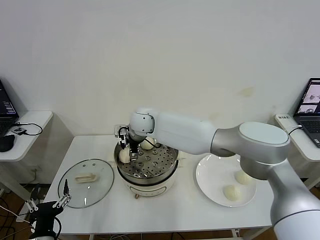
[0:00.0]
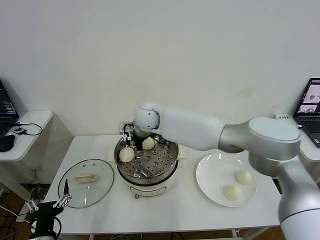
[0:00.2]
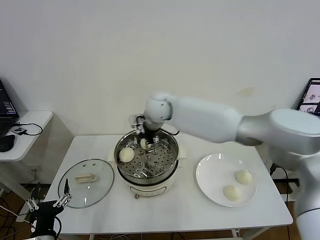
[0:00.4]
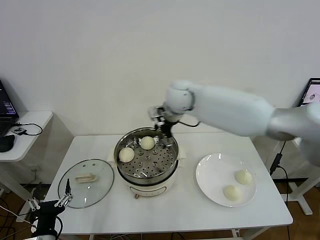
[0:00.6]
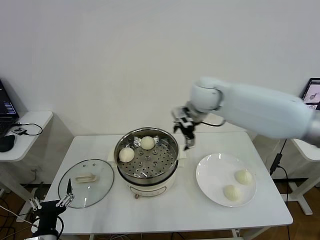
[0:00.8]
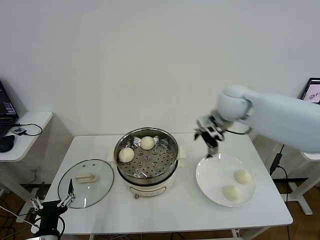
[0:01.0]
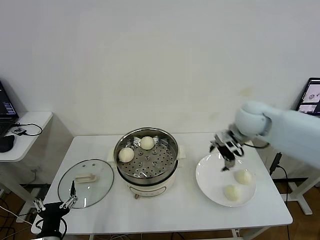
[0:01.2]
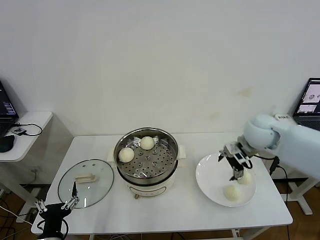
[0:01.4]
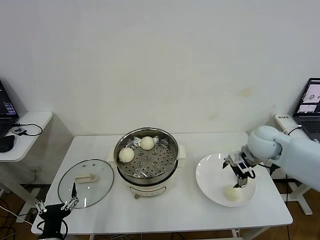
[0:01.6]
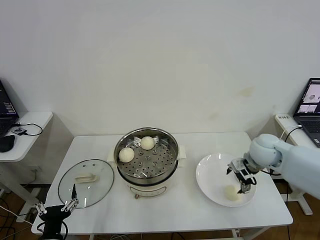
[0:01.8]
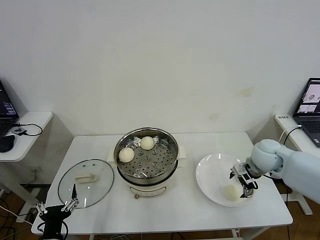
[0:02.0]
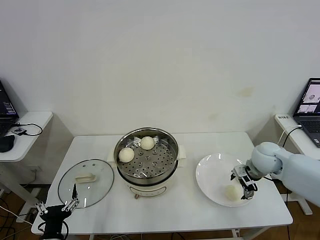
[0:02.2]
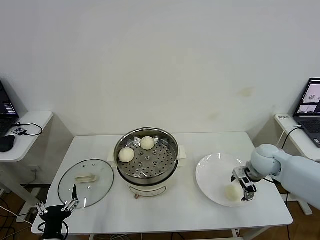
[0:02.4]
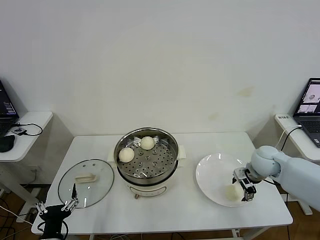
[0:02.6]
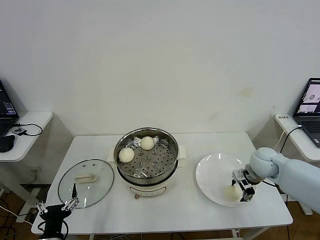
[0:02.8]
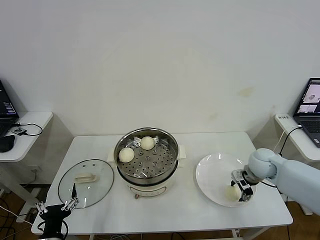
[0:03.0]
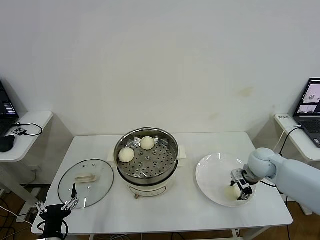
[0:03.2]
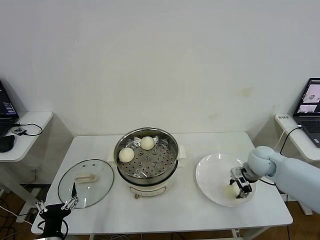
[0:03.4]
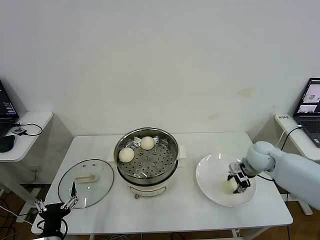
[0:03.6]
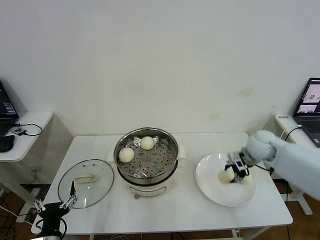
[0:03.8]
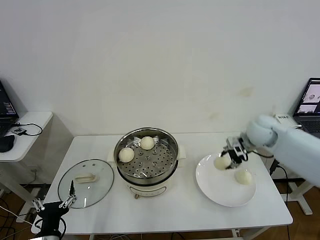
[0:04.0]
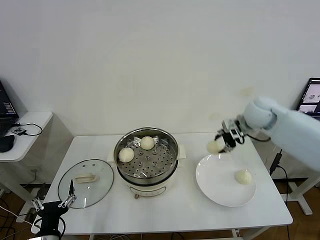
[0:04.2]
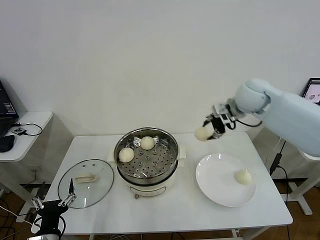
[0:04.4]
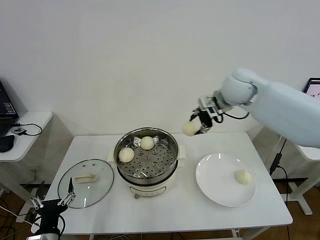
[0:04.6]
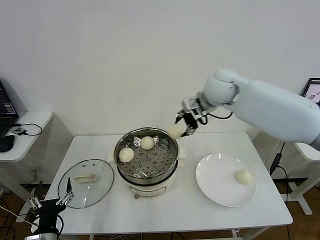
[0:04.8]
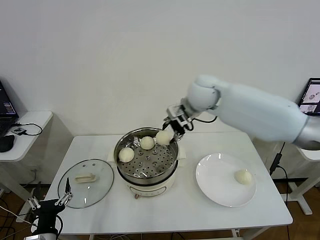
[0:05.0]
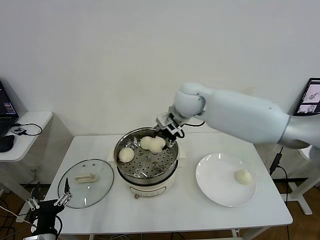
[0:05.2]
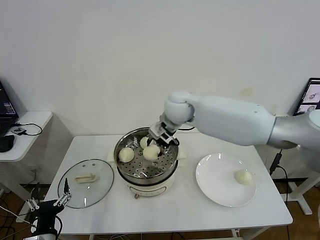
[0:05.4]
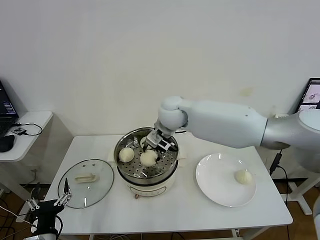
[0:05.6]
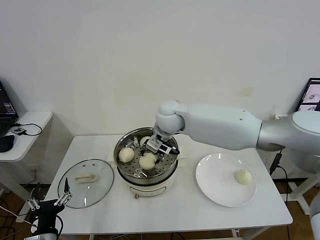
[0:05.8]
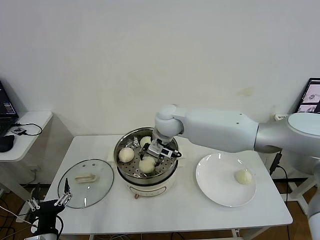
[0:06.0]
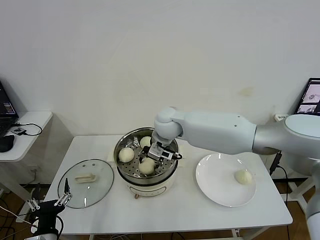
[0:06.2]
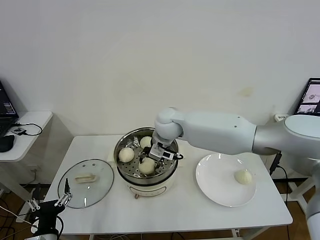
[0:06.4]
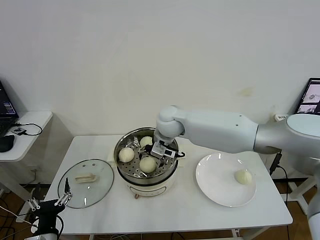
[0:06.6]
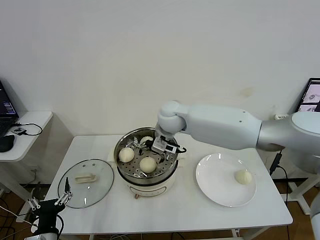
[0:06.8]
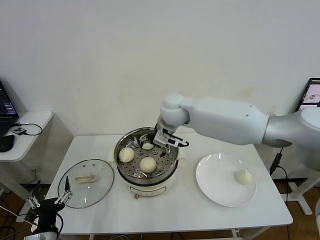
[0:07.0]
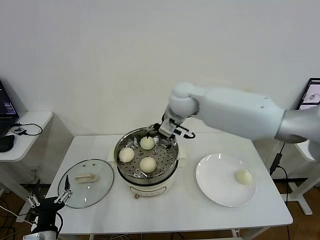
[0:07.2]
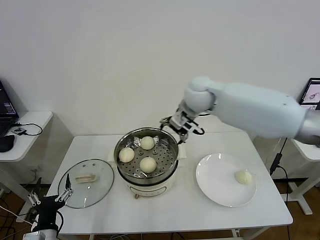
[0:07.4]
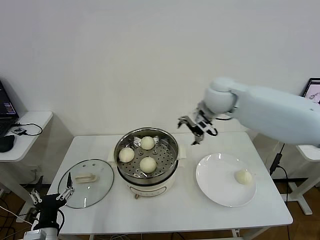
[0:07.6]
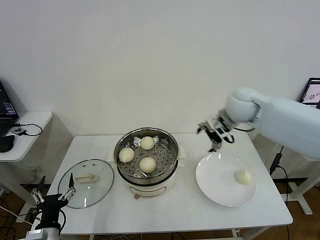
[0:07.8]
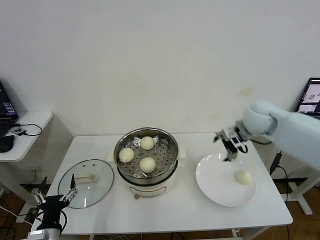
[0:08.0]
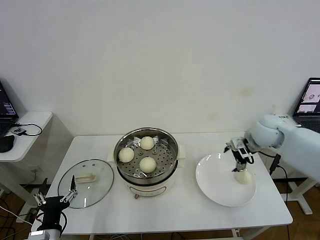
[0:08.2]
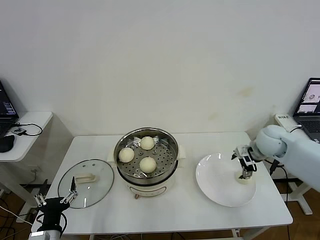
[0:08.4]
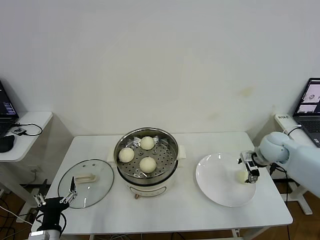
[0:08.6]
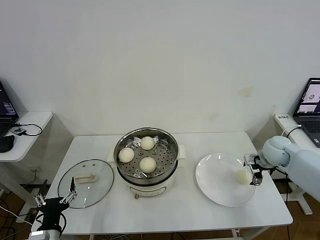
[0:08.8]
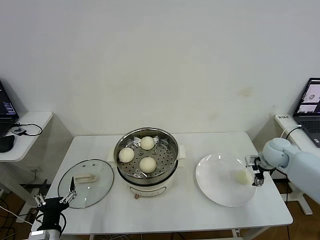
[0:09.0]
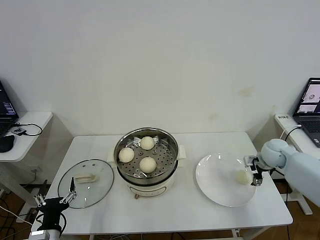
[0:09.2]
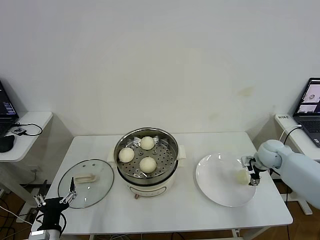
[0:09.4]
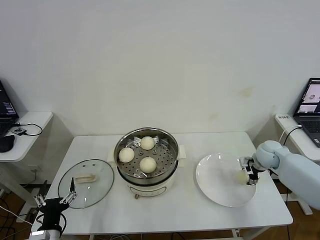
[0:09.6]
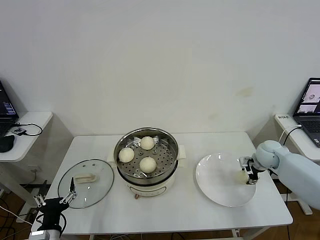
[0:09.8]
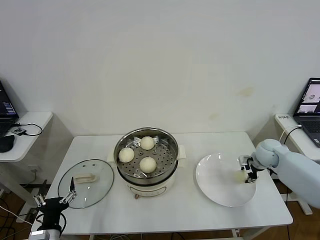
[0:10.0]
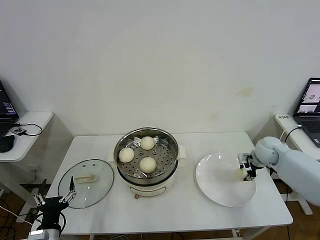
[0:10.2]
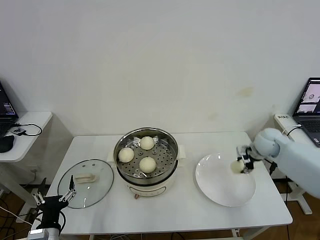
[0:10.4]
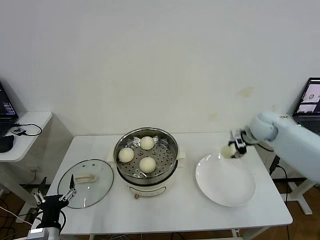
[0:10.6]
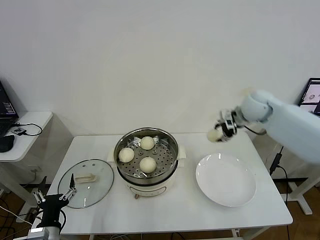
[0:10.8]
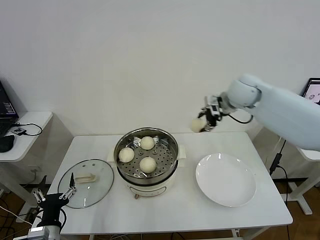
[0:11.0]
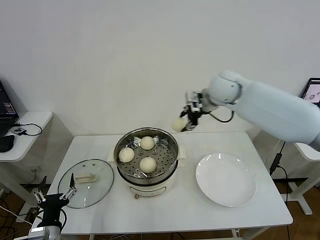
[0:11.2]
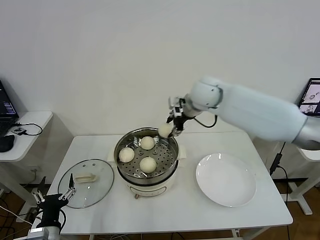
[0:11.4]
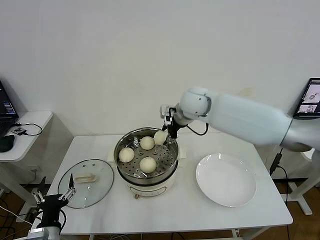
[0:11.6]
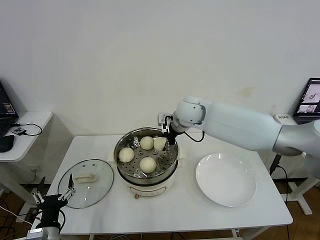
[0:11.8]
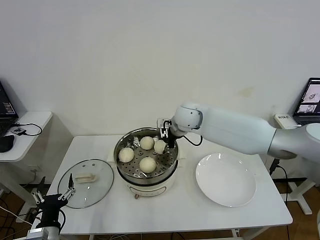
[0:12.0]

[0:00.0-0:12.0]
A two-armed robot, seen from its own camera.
Step, 0:00.2 to 0:03.2: Grasp the baozi in the plate with right gripper.
Step, 0:03.4 to 0:06.6: Place the baozi on the steamer with right gripper.
Step, 0:06.8 to 0:10.0: Grasp the baozi in the plate with right gripper.
0:00.0 to 0:01.6: The right gripper goes some 40 cm to the right.
0:01.6 to 0:03.0: The right gripper goes some 10 cm downward, and closes its fingers.
0:03.0 to 0:04.4: The right gripper is displaced upward, forward and to the left by approximately 25 cm, and closes up.
0:04.4 to 0:06.0: The right gripper travels to the left by some 25 cm.
0:06.0 to 0:07.6: The right gripper travels to the right and upward by about 15 cm, and opens.
0:07.6 to 0:09.0: The right gripper travels to the right and downward by some 30 cm.
0:09.0 to 0:10.4: The right gripper closes.
0:10.4 to 0:12.0: The right gripper heads to the left, covering approximately 30 cm.

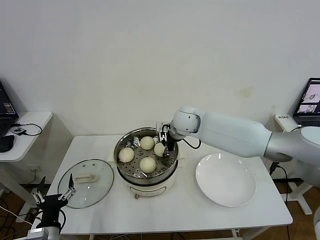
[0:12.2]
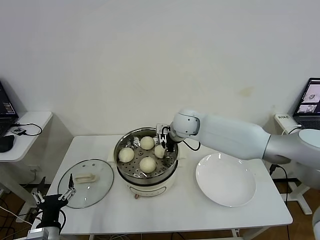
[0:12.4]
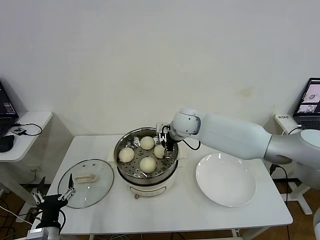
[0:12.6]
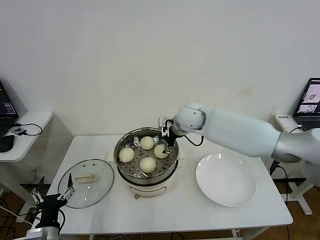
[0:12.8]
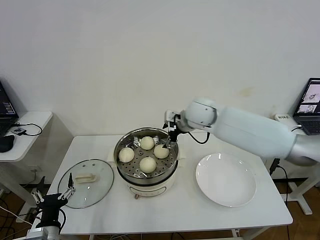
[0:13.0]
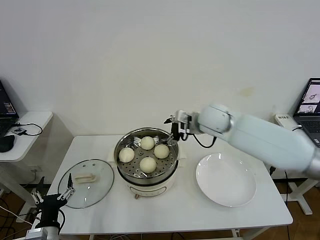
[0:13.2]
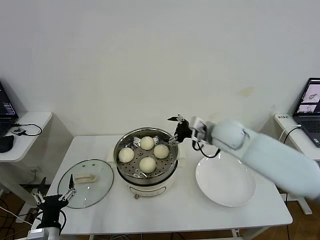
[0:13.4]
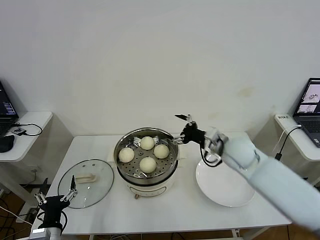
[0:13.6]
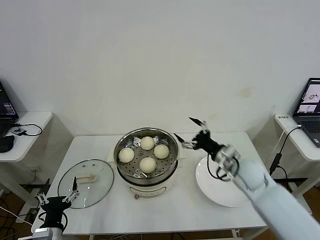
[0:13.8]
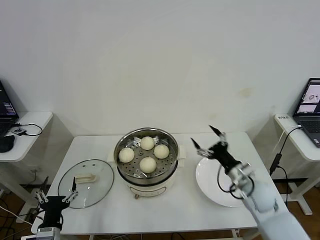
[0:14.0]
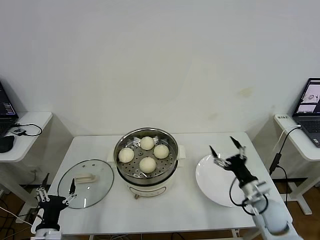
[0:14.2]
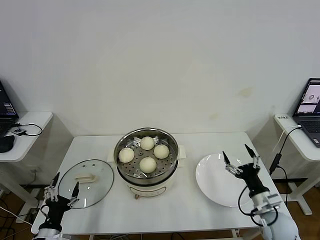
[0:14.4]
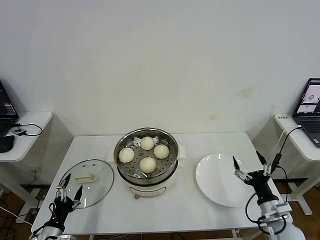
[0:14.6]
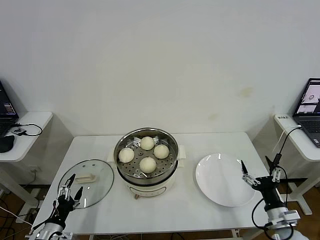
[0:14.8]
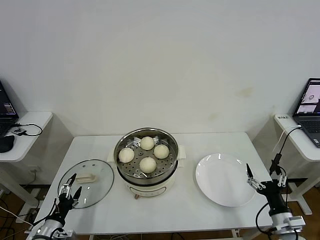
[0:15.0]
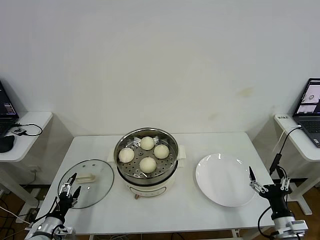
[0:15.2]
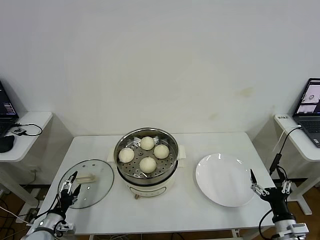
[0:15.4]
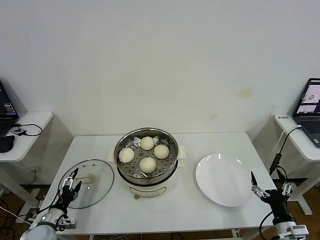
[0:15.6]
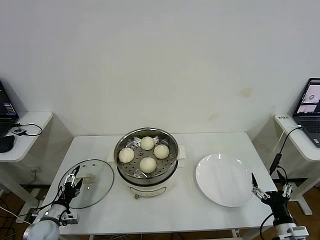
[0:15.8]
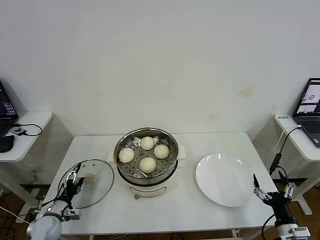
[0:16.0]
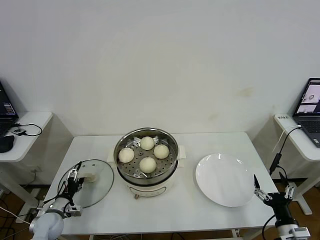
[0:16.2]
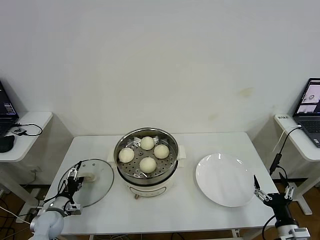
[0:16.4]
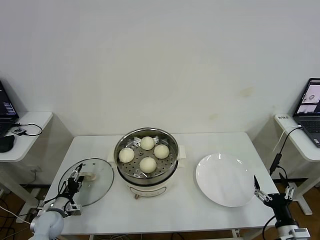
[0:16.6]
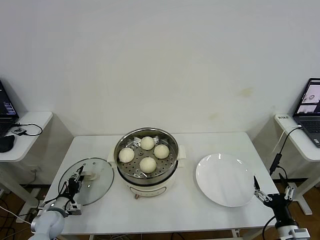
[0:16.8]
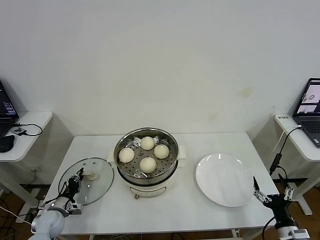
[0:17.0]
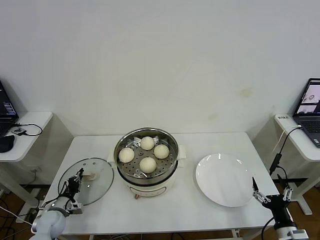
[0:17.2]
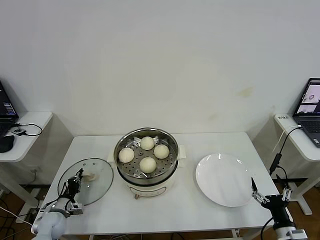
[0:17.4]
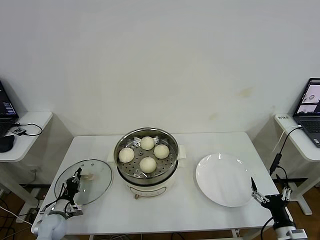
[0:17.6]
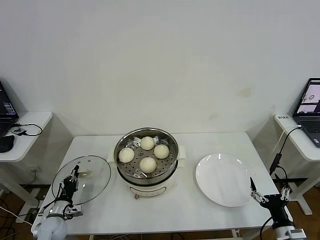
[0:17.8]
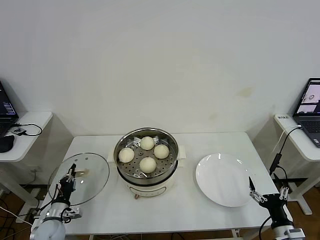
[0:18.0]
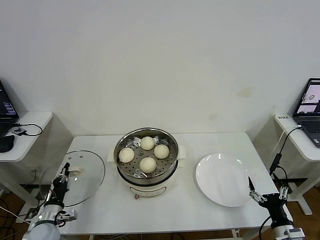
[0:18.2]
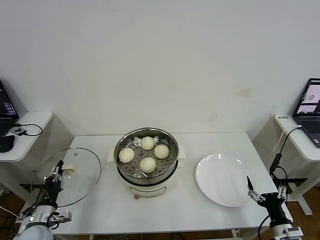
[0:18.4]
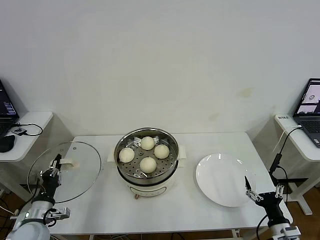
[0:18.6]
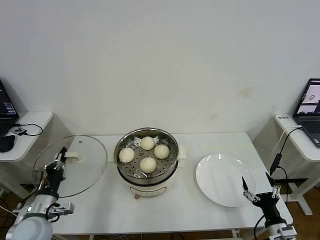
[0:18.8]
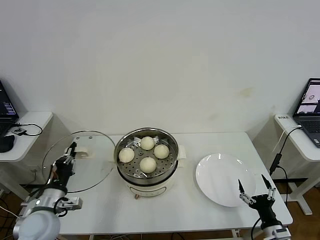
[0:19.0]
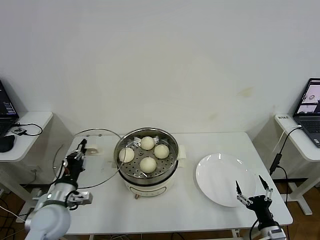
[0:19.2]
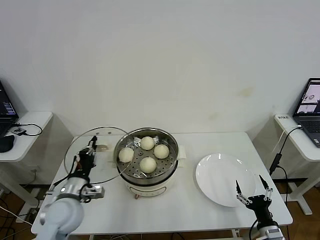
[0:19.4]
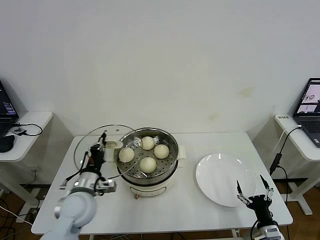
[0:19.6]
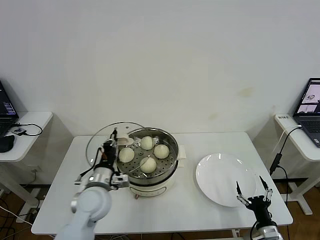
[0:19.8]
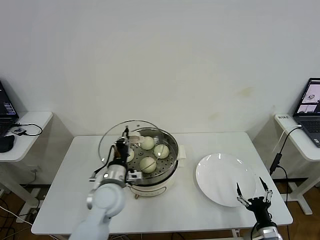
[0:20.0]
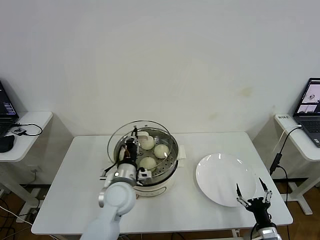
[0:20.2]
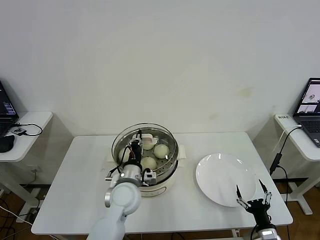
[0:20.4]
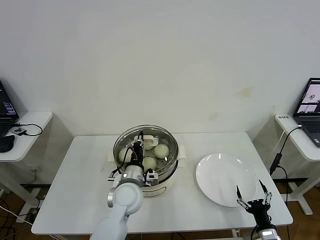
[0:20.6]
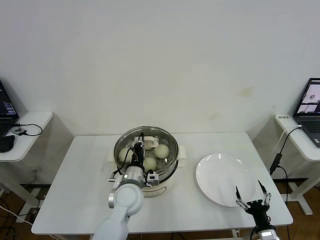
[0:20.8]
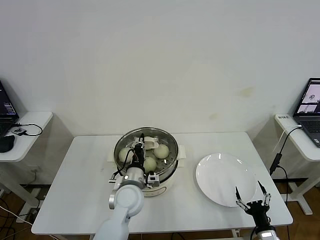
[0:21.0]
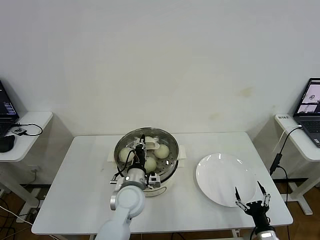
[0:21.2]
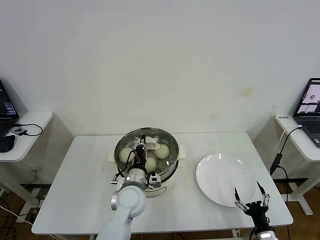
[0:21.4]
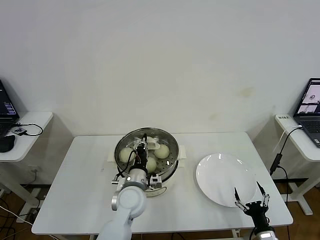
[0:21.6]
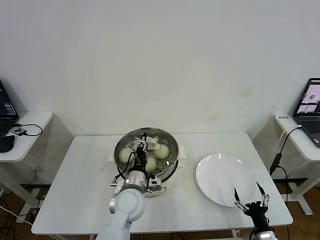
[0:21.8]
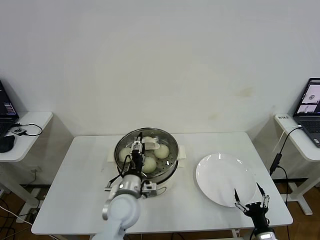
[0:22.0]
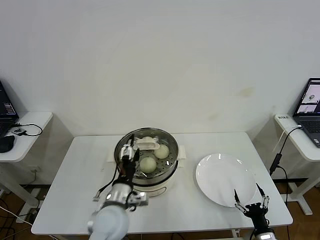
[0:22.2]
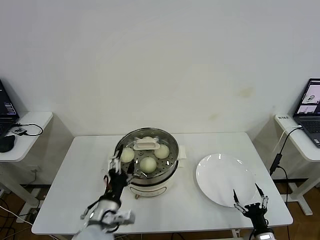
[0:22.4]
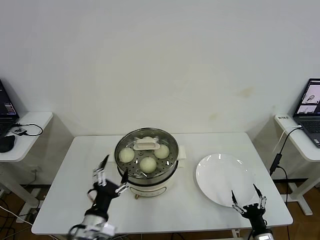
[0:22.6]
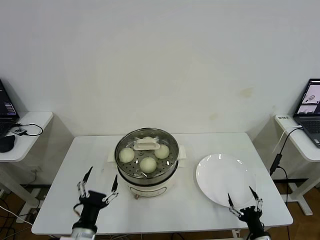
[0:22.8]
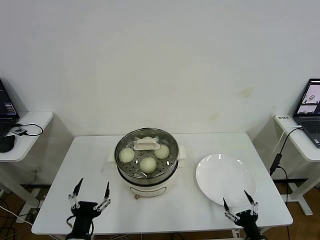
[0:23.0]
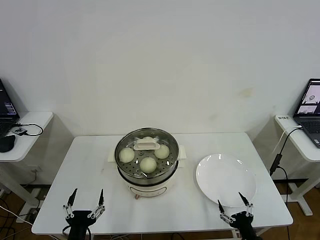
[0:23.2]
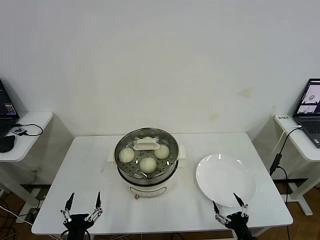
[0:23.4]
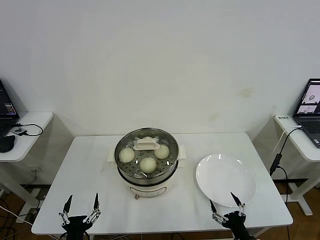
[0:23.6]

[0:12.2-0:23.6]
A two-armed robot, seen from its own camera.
Step, 0:13.0 to 0:17.2: Grasp the pot lid with left gripper.
Step, 0:17.6 to 0:21.8: Place the pot lid on the steamer with left gripper.
0:12.2 to 0:13.6: The right gripper heads to the right and backward, covering about 20 cm, and opens its fingers.
0:13.6 to 0:15.0: The left gripper goes about 10 cm to the left and downward; the right gripper goes approximately 35 cm backward, downward and to the right.
0:15.0 to 0:16.4: The left gripper is displaced forward by approximately 10 cm.
0:16.4 to 0:17.8: The left gripper closes.
0:17.8 to 0:19.4: The left gripper goes approximately 25 cm upward and to the right.
0:19.4 to 0:20.8: The left gripper heads to the right, covering approximately 20 cm.
0:20.8 to 0:22.2: The left gripper shifts approximately 5 cm backward, and opens up.
0:22.2 to 0:23.6: The left gripper heads backward, to the left and downward, covering about 25 cm. The right gripper moves to the left, about 5 cm.
